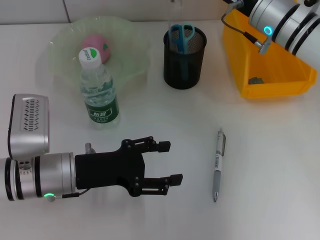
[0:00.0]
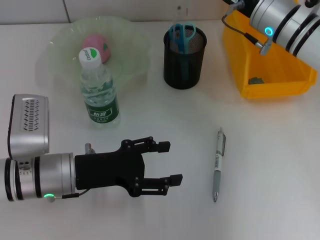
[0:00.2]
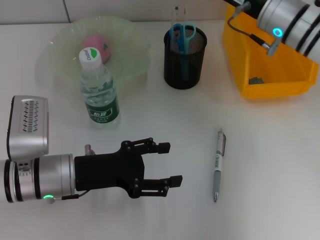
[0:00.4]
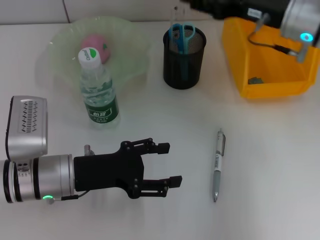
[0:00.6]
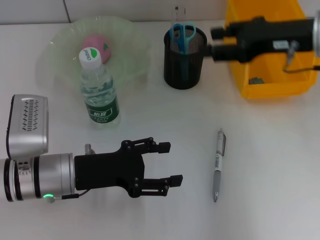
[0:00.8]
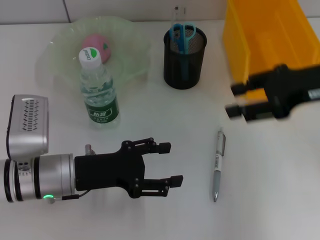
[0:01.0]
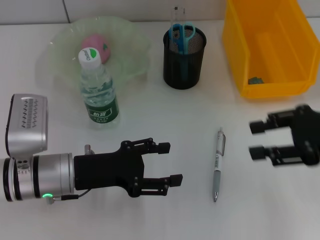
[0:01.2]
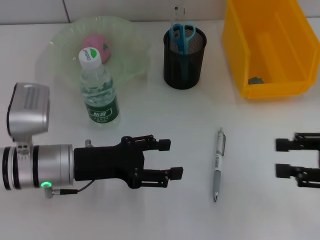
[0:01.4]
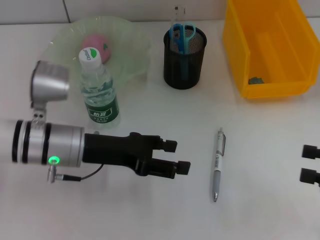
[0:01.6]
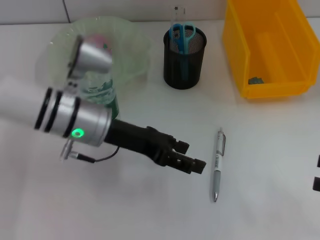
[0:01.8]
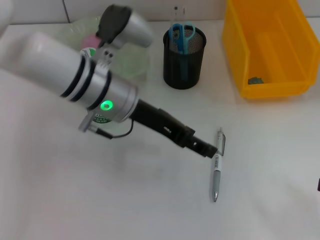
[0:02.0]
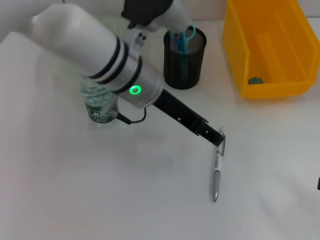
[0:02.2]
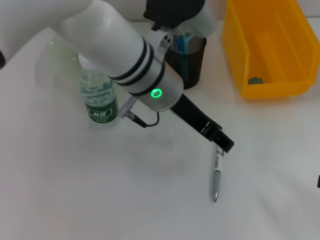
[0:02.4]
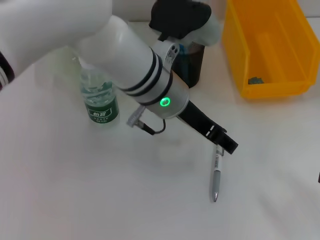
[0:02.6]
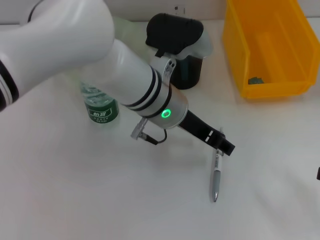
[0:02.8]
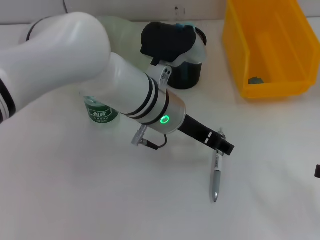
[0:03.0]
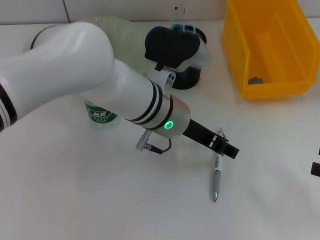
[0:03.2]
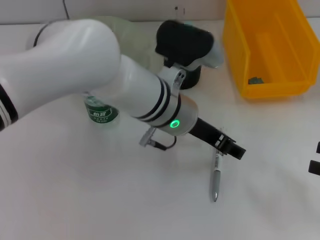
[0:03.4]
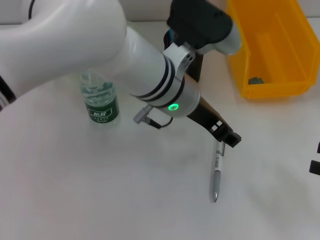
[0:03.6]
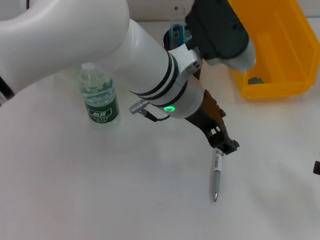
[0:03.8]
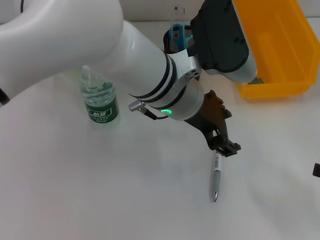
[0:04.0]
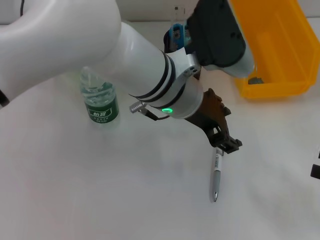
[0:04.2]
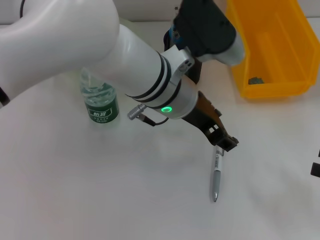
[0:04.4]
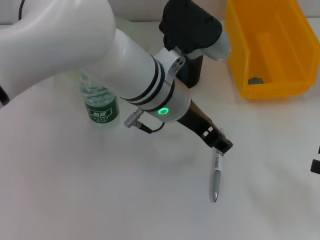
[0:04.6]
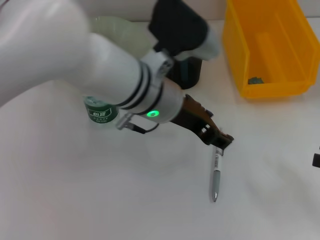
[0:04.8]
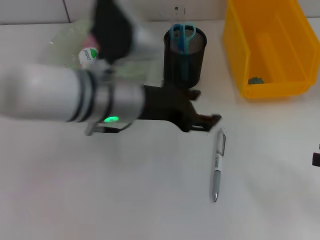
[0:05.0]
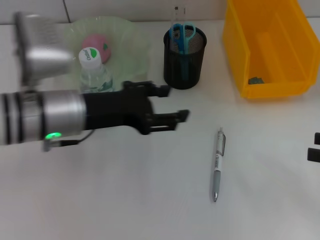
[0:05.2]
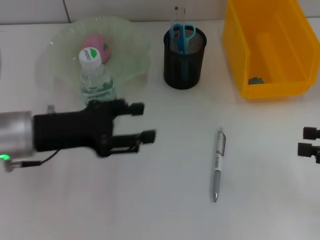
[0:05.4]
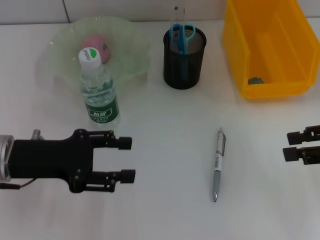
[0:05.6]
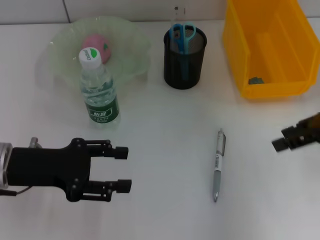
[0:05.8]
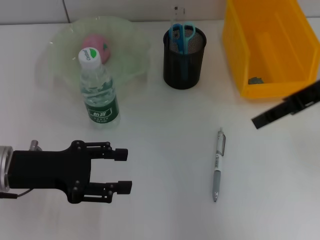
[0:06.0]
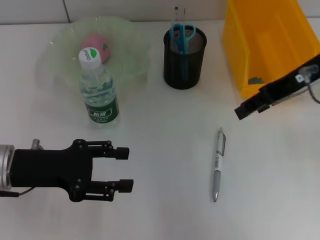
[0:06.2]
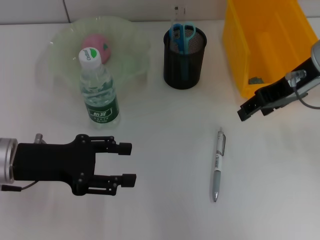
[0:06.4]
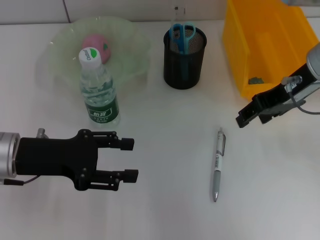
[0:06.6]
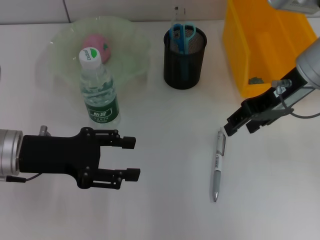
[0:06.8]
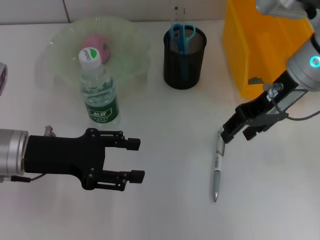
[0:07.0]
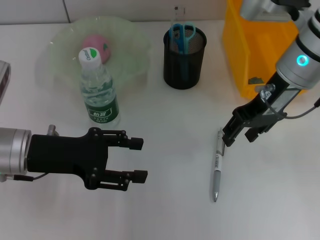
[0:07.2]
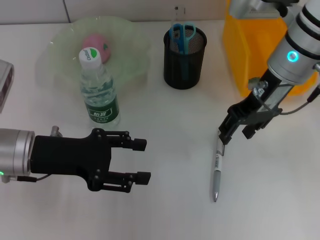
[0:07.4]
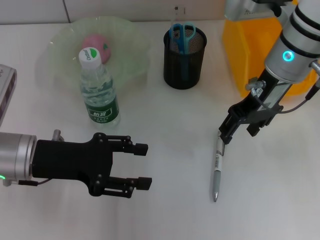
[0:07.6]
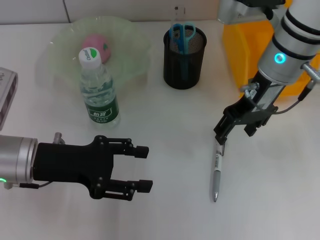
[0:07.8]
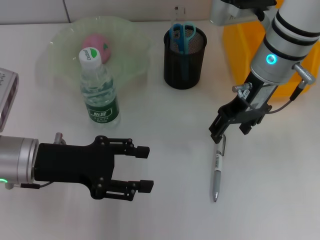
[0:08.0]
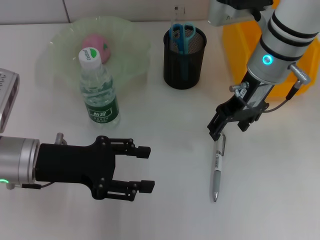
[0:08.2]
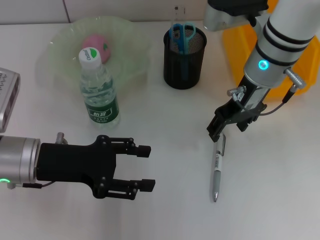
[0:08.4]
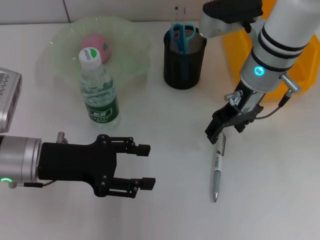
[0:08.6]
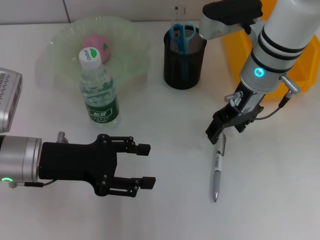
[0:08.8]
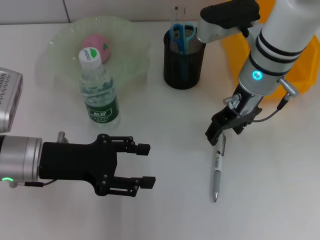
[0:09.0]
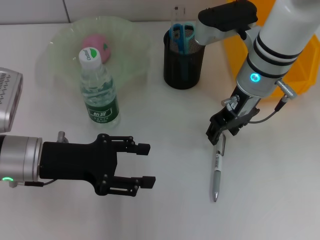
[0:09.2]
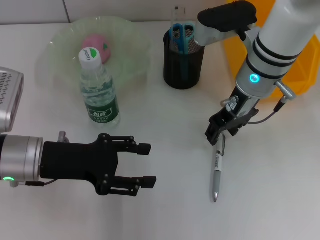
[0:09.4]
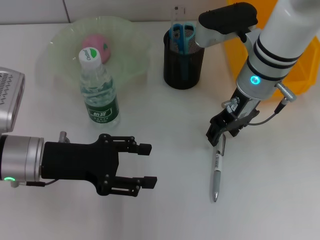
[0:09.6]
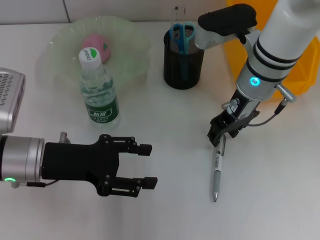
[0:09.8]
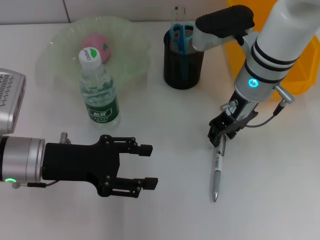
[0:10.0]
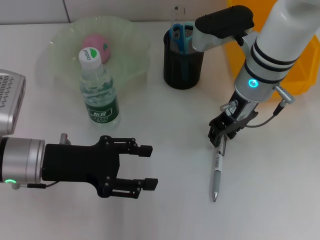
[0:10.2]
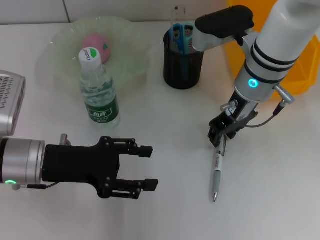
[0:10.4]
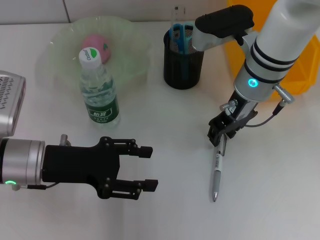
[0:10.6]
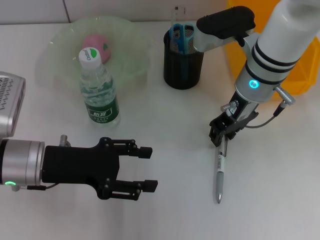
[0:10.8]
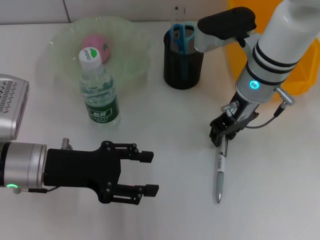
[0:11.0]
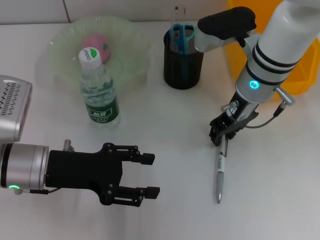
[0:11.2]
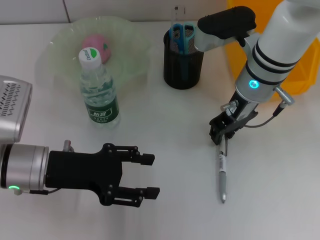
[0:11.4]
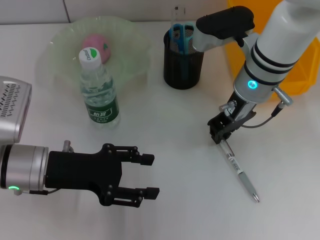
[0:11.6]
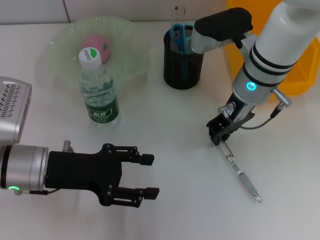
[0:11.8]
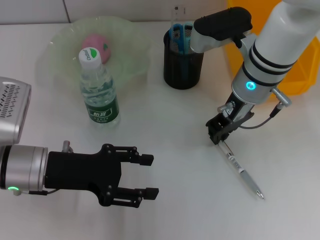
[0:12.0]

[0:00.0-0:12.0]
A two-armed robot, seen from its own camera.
Step, 0:00.4 to 0:11.8: Grab the gray spring-action pen with the right hand.
0:00.0 to 0:01.6: The right gripper travels backward and to the right by approximately 30 cm. The left gripper changes place by approximately 5 cm.
0:01.6 to 0:03.0: The left gripper travels to the right by some 15 cm.
0:04.4 to 0:06.0: The right gripper moves forward, upward and to the left, some 25 cm. Meanwhile the left gripper shifts some 25 cm to the left.
0:06.0 to 0:07.6: The right gripper is displaced to the left by about 10 cm.
0:07.6 to 0:09.0: The grippers stay close to where they were, moving slightly.
0:09.0 to 0:10.4: The right gripper closes.
0:10.4 to 0:12.0: Both grippers stay about where they are.

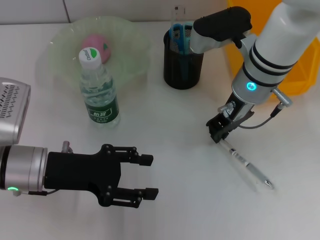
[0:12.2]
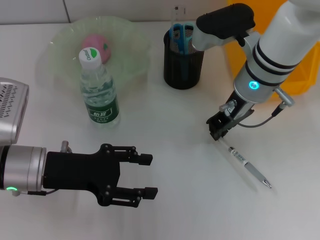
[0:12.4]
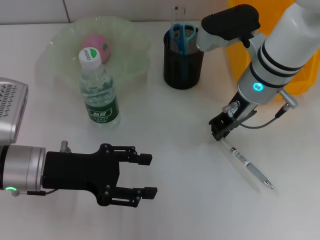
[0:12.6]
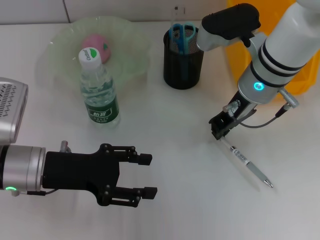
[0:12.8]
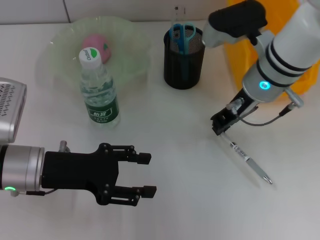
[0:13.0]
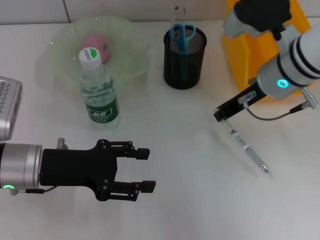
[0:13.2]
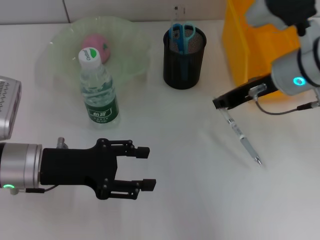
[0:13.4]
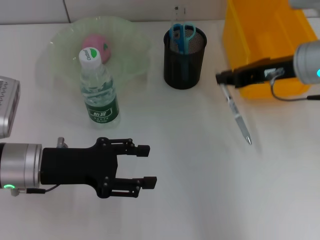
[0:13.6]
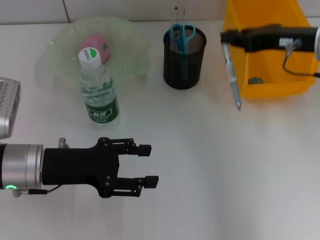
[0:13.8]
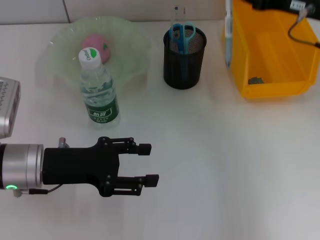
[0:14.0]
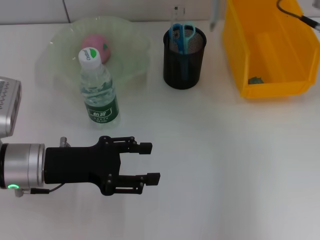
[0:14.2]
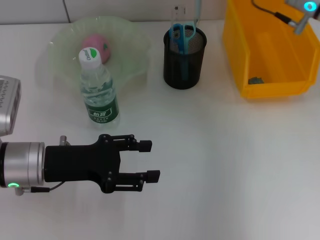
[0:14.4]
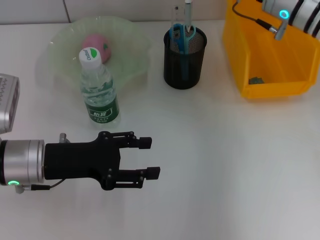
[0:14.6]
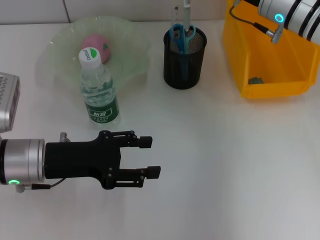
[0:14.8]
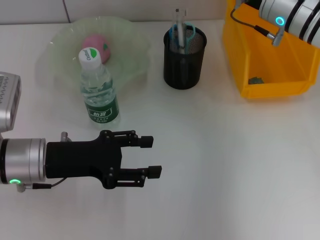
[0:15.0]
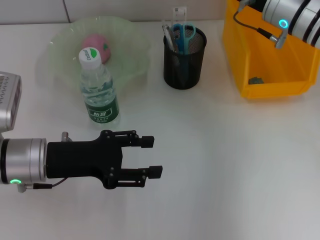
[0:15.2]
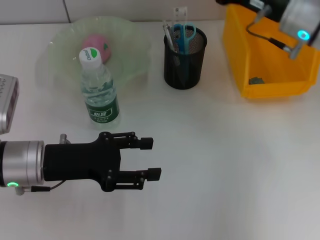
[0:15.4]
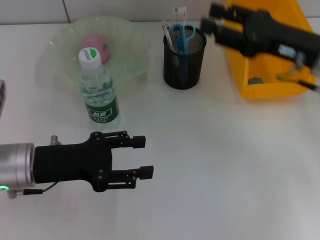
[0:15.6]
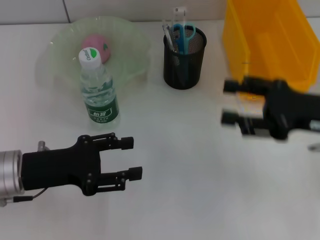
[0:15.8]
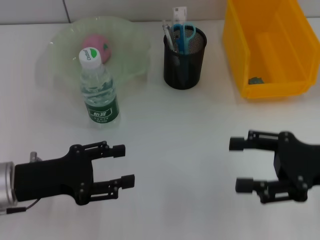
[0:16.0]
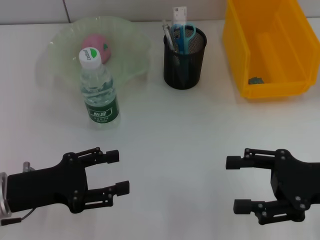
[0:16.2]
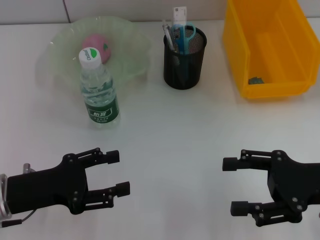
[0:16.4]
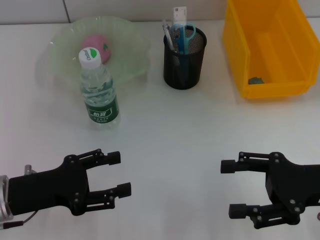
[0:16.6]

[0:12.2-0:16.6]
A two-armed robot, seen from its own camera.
Step, 0:12.2 to 0:15.2: Place the gray spring-action pen into the pen holder with the right hand.
0:12.2 to 0:13.6: The right gripper is displaced to the right by approximately 10 cm.
0:13.6 to 0:15.2: The right gripper is displaced forward by some 5 cm.
0:15.2 to 0:16.6: The right gripper travels backward and to the right by approximately 20 cm, and opens its fingers. The left gripper heads backward, covering some 5 cm.

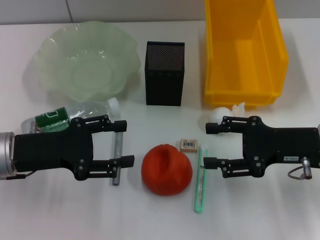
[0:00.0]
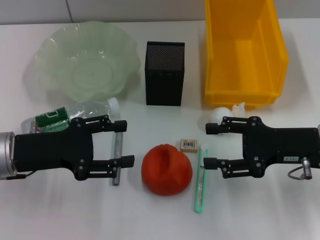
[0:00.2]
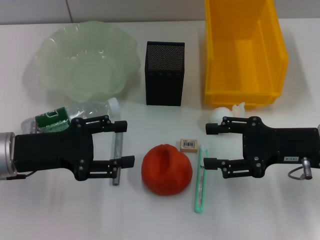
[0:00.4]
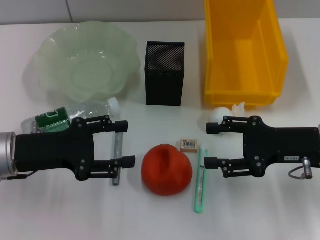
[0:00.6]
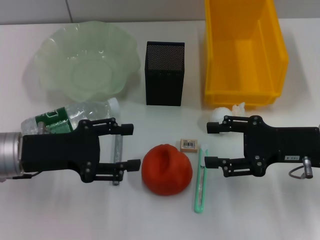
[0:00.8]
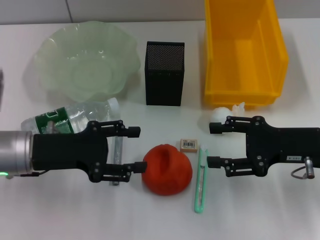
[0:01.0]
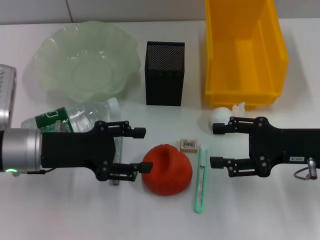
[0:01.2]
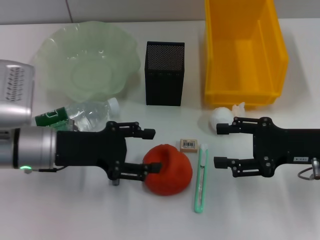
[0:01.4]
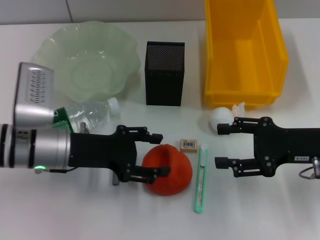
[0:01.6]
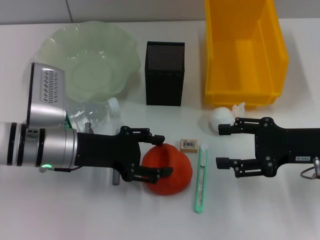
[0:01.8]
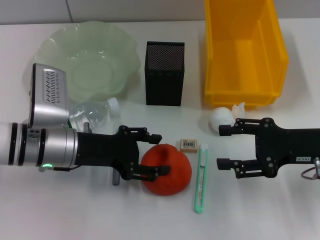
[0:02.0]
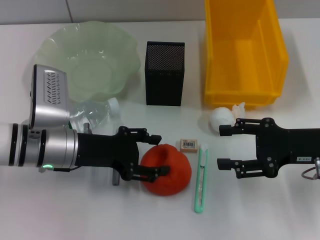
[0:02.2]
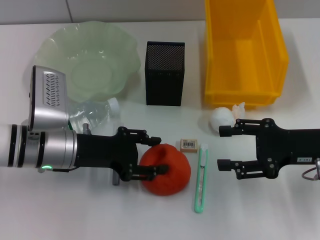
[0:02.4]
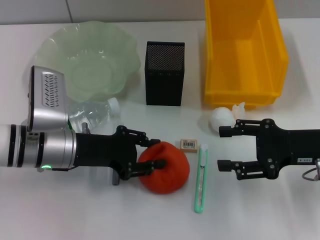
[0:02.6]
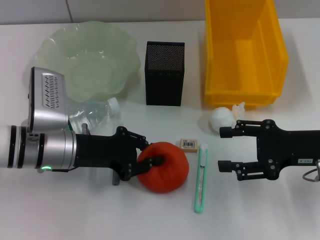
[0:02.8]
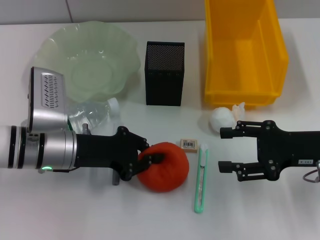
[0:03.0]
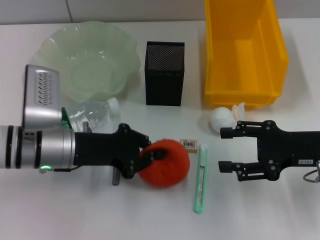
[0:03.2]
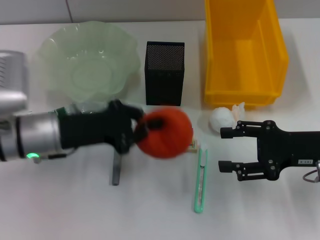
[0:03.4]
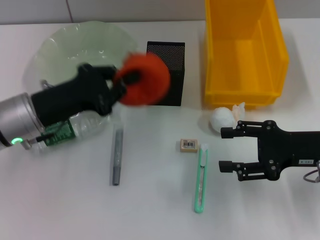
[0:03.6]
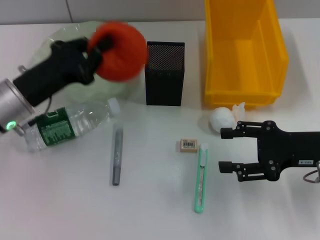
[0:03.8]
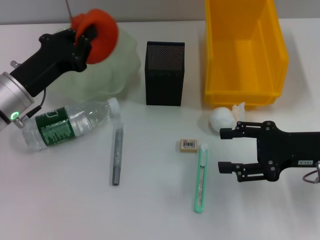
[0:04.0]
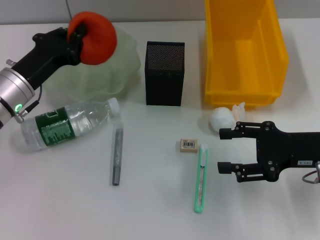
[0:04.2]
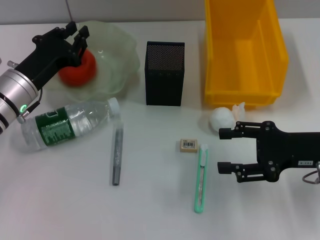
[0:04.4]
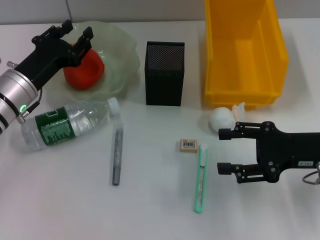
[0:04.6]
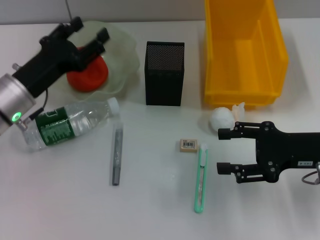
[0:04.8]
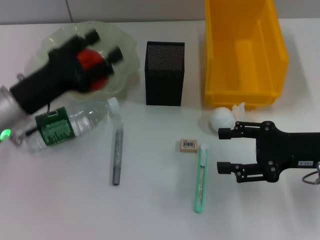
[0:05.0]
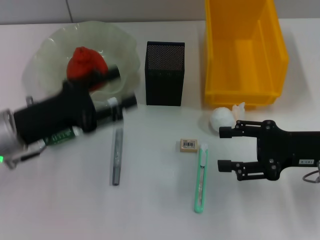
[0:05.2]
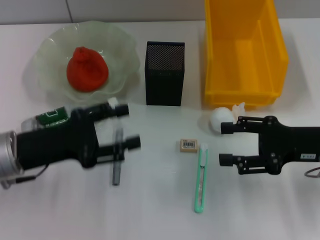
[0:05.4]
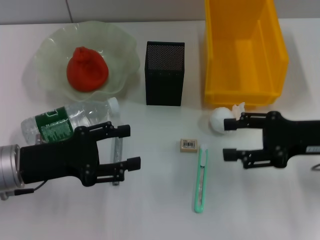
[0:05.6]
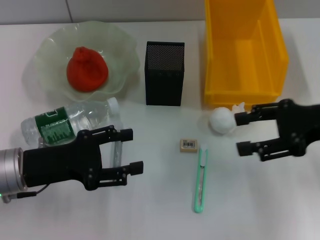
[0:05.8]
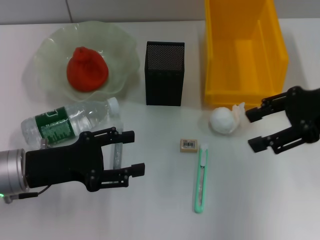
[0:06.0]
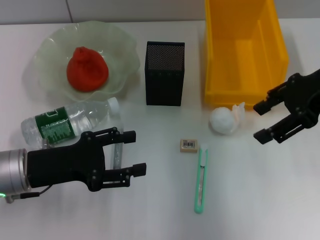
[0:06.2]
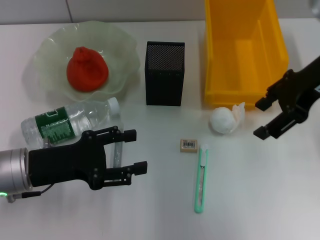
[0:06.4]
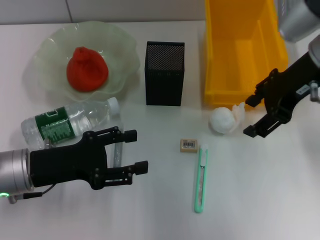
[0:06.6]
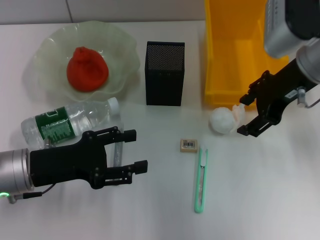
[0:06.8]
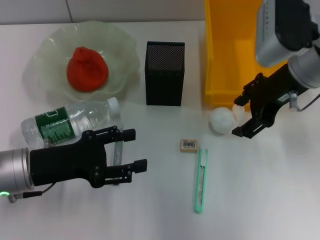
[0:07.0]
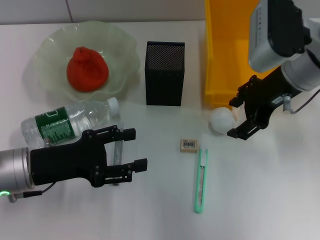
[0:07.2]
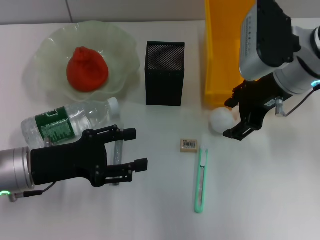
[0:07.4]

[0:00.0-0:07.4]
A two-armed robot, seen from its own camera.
Step, 0:00.0 to 0:02.6: Grab the orange with the left hand.
Step, 0:02.8 to 0:05.0: Place the orange into the fruit bowl with the left hand.
0:00.0 to 0:01.4: The grippers make only small movements.
0:01.4 to 0:03.0: The left gripper closes up.
0:03.0 to 0:04.4: The left gripper shifts by approximately 5 cm.
0:04.4 to 0:06.0: The right gripper travels upward by roughly 10 cm; the left gripper heads backward, covering roughly 10 cm, and opens its fingers.
0:06.0 to 0:07.4: The right gripper goes approximately 10 cm to the left.
